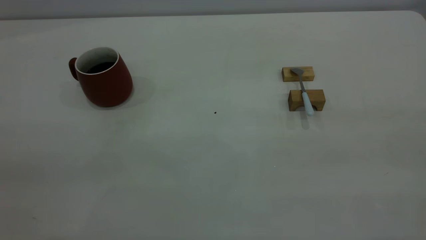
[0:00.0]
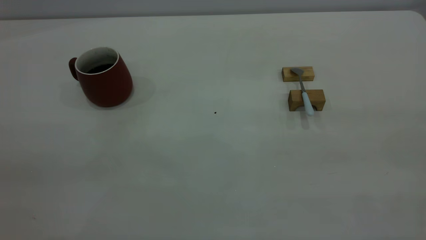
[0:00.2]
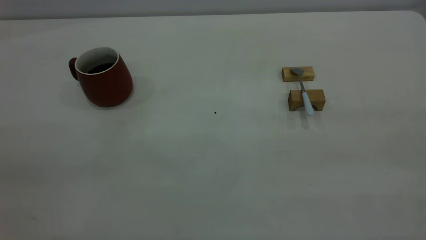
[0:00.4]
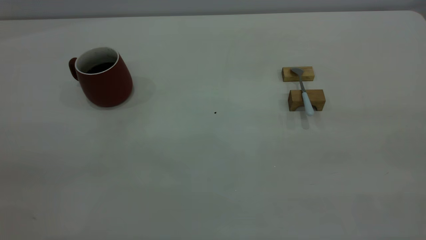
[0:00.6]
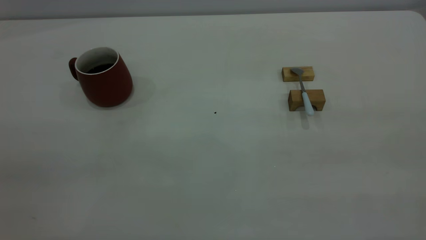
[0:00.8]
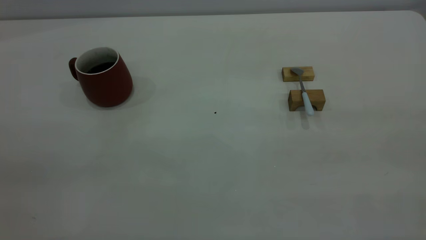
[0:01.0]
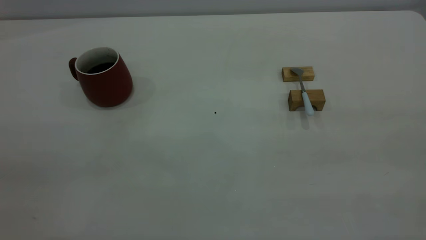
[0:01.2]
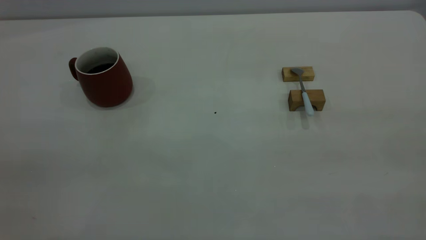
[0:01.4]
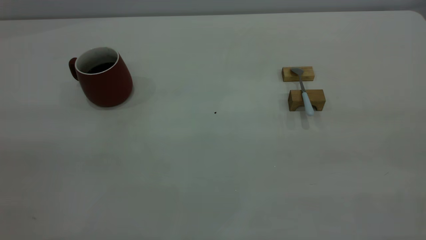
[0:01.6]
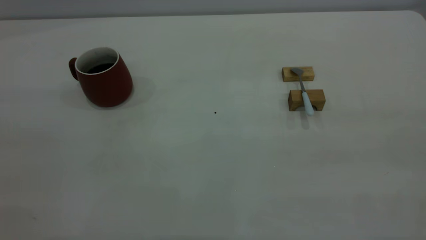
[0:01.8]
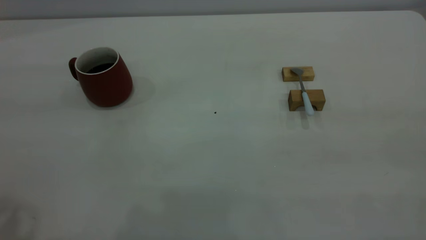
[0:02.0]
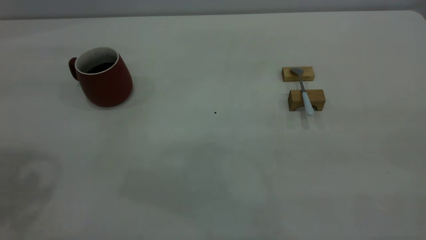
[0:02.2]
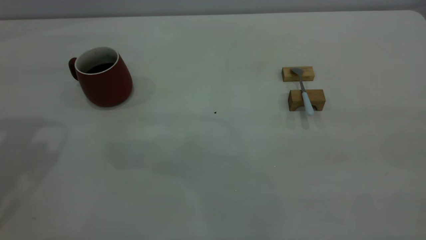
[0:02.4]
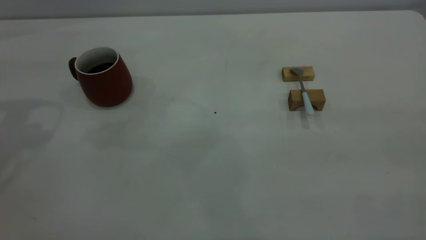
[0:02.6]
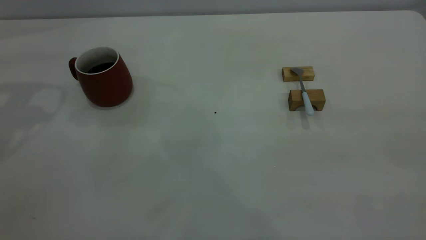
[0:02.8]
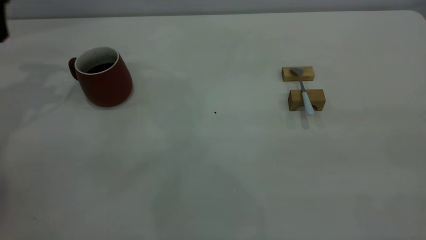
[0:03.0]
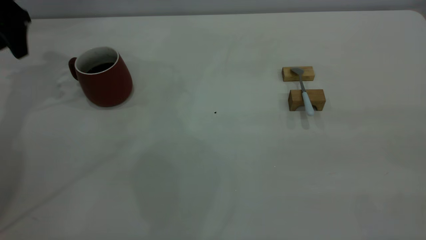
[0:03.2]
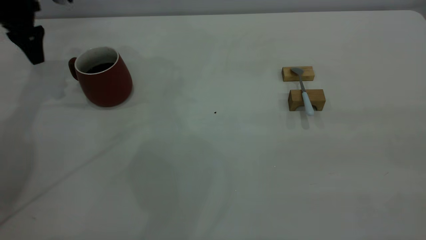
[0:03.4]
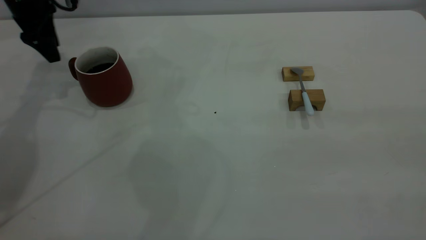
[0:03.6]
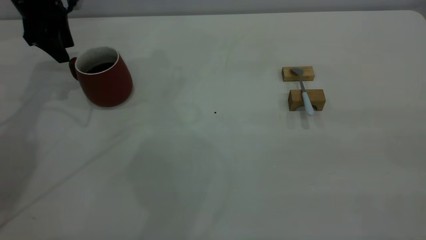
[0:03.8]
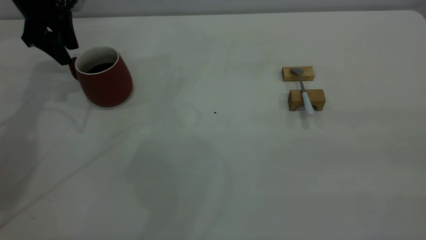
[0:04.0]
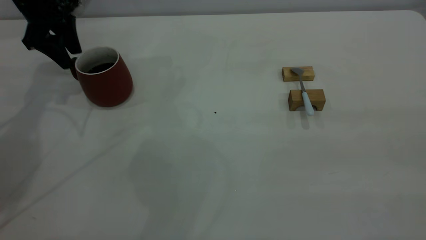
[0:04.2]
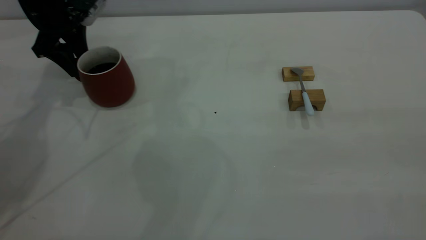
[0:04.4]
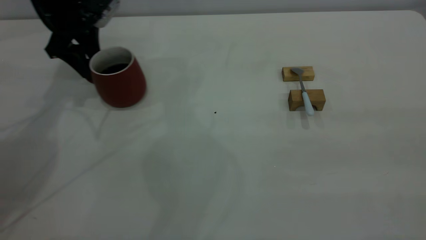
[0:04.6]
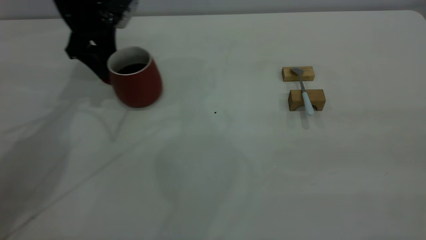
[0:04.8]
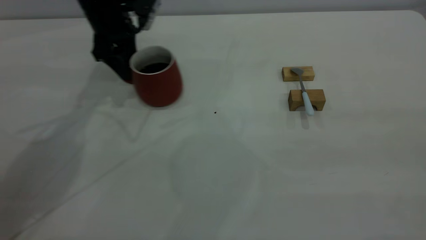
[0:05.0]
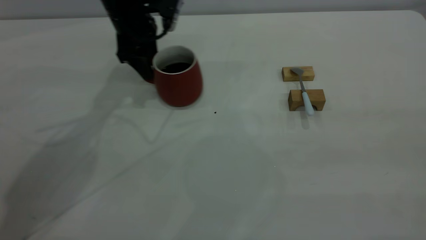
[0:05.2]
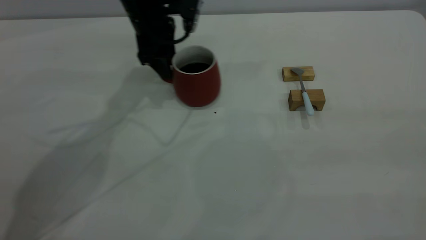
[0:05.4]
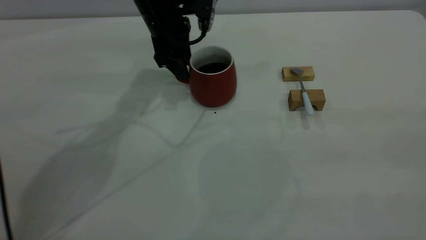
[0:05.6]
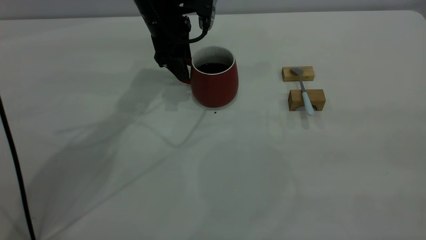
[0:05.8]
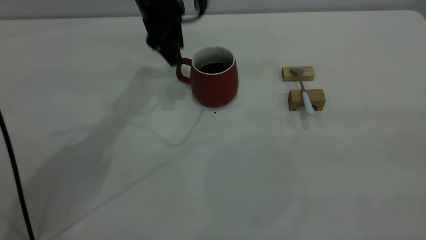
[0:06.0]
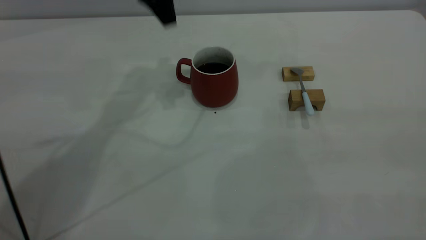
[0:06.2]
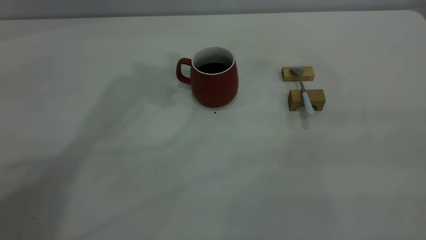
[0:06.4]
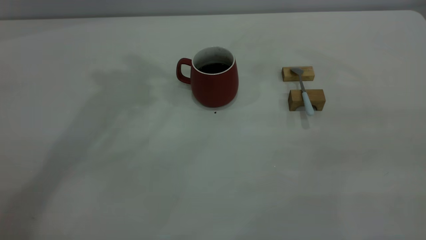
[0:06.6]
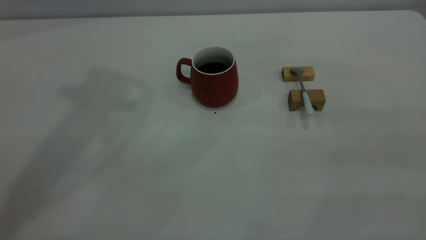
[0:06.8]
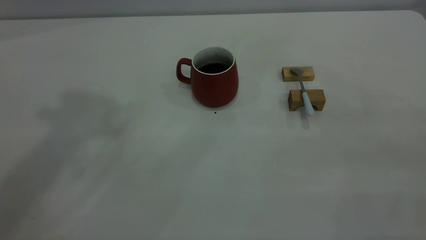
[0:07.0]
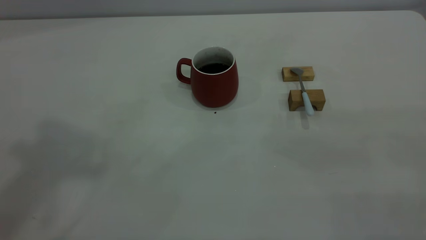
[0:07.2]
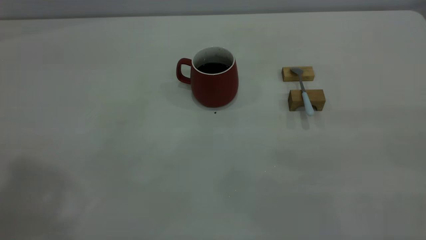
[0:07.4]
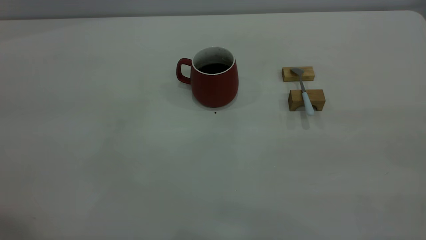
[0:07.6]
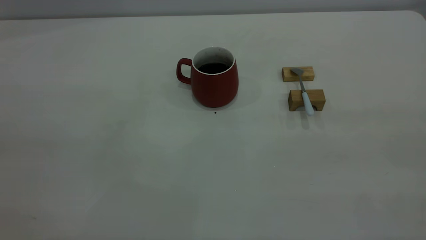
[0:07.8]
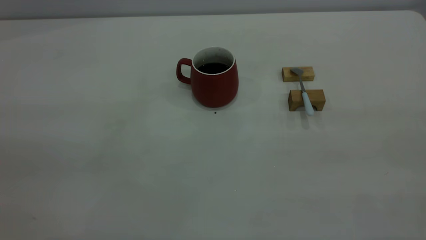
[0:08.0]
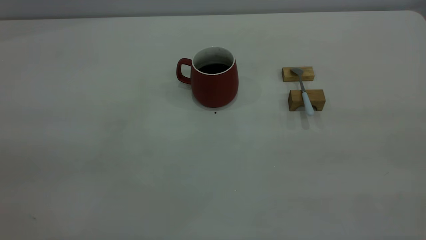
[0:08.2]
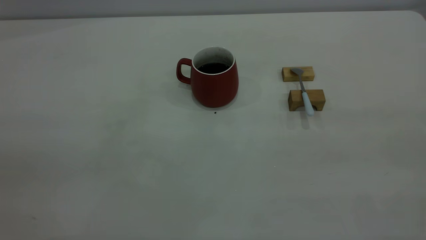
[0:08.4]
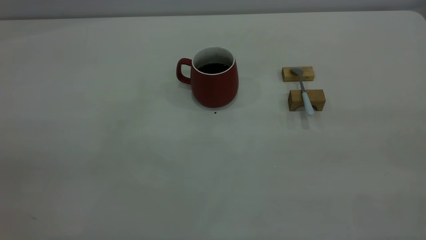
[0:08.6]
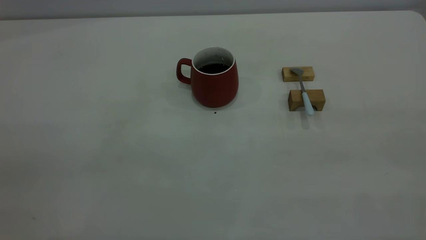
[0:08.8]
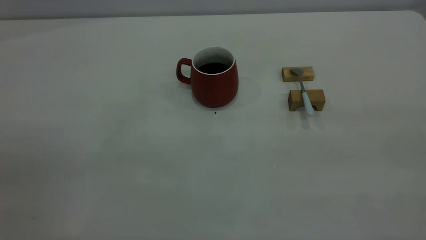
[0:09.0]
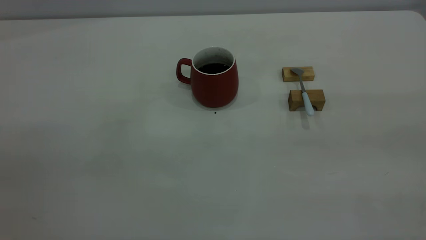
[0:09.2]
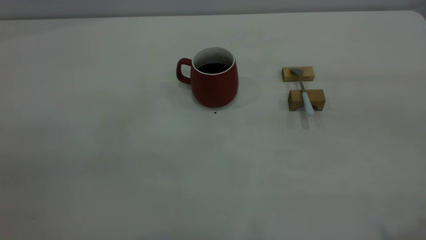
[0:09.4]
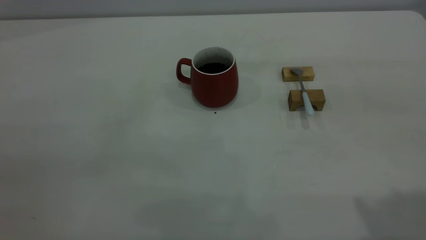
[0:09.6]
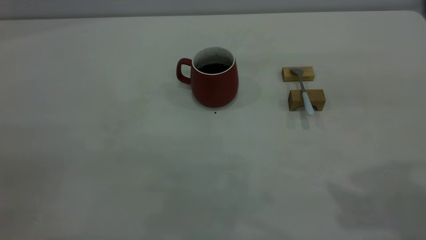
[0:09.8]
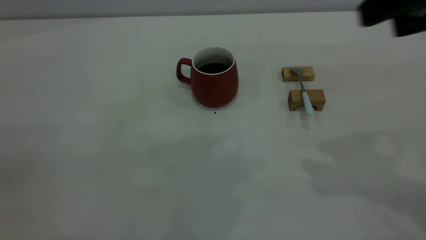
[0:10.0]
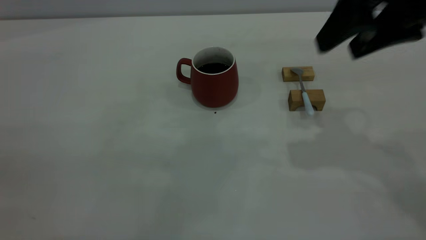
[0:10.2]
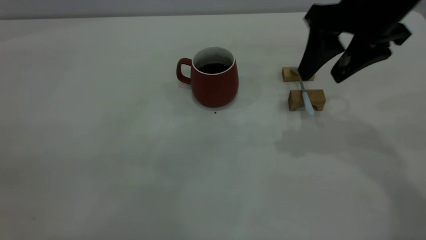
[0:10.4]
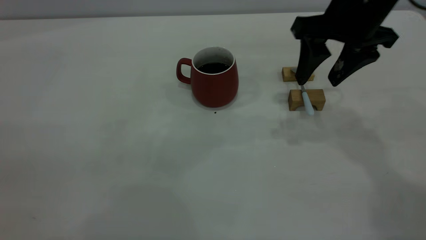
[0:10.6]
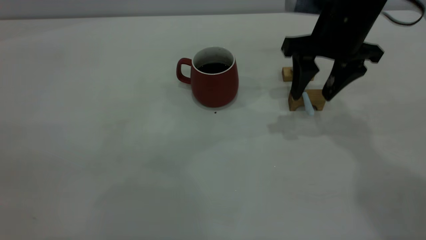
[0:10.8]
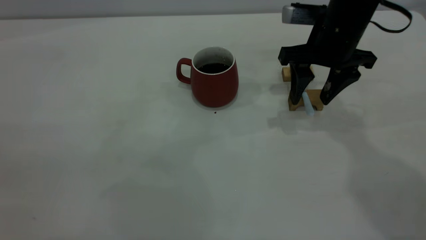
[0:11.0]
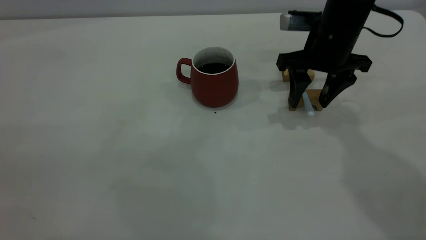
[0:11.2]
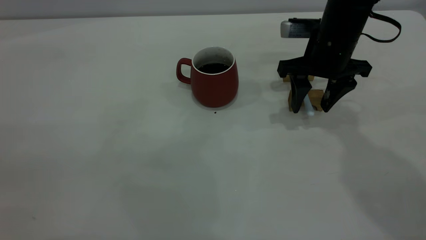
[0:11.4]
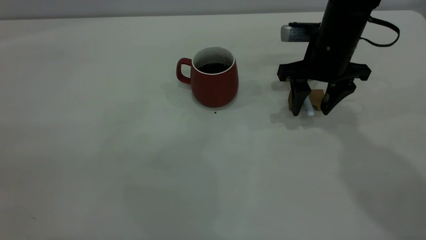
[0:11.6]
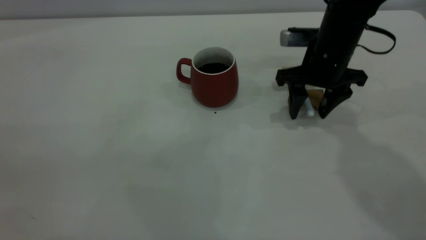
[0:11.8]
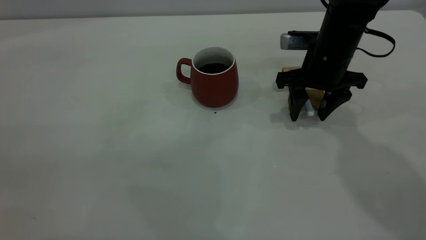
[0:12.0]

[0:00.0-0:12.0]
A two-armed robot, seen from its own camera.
Step, 0:00.0 to 0:06.0: Move the cup with coffee to the center of view.
0:03.0 to 0:04.4: The left gripper is displaced downward, to the right and forward by about 15 cm.
0:04.4 to 0:06.0: The left gripper shifts approximately 20 cm to the right.
0:06.0 to 0:07.6: The left gripper shifts approximately 50 cm backward, upward and to the left.
0:09.0 to 0:10.4: The right gripper is displaced forward and downward by approximately 35 cm.
0:10.4 to 0:12.0: The right gripper goes roughly 15 cm downward and forward.

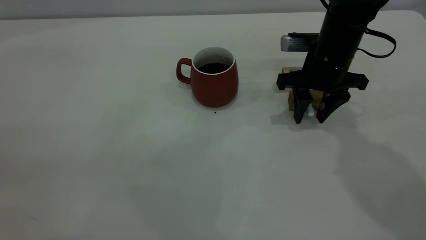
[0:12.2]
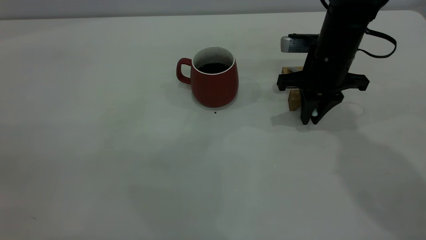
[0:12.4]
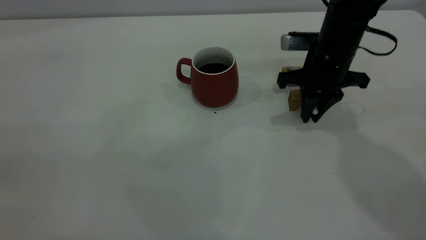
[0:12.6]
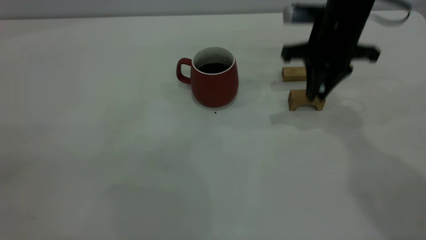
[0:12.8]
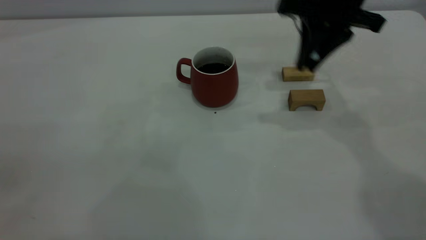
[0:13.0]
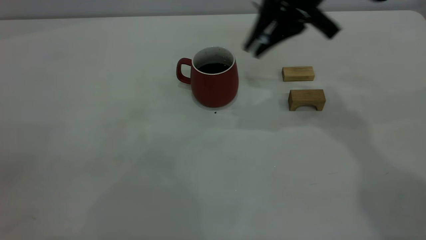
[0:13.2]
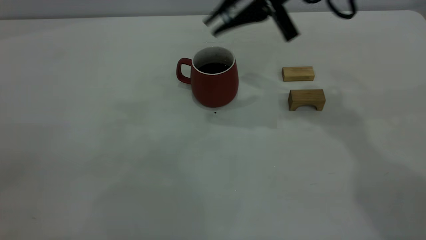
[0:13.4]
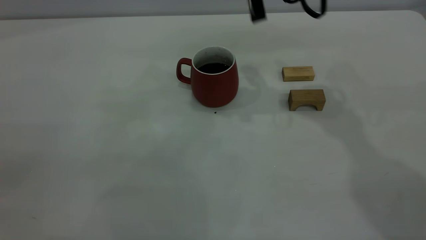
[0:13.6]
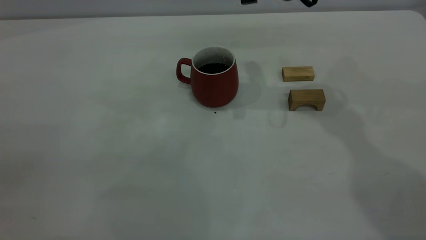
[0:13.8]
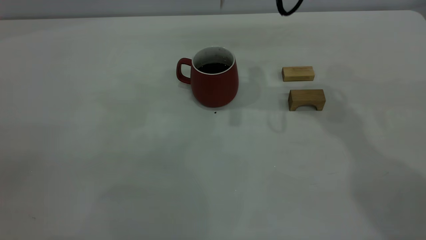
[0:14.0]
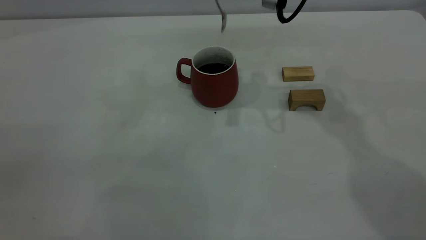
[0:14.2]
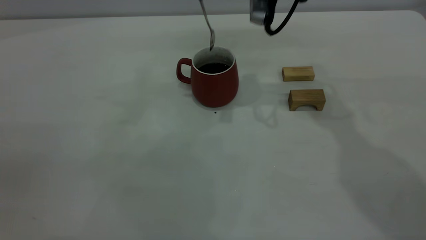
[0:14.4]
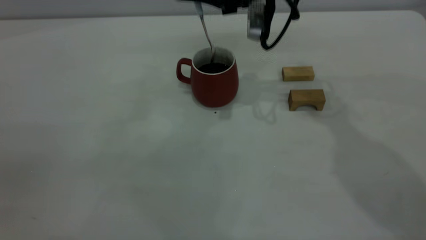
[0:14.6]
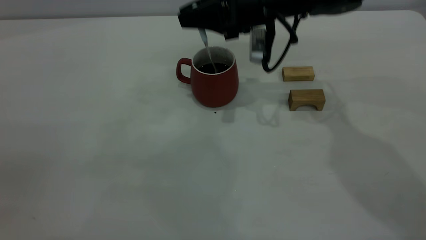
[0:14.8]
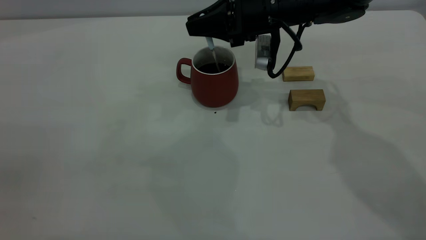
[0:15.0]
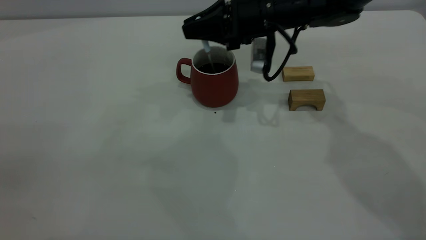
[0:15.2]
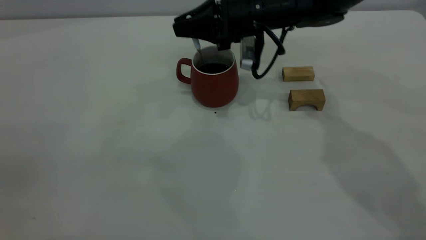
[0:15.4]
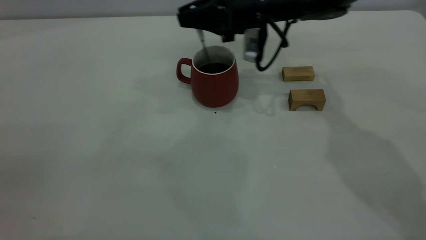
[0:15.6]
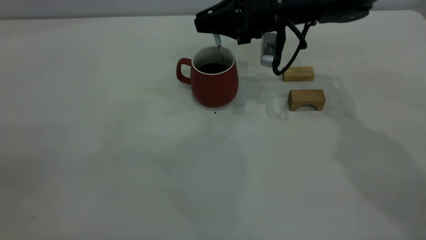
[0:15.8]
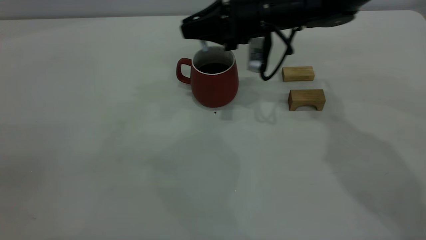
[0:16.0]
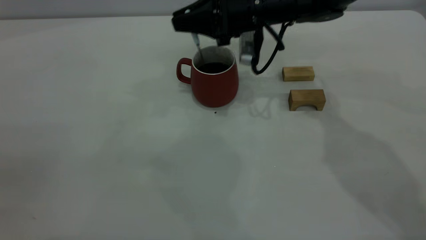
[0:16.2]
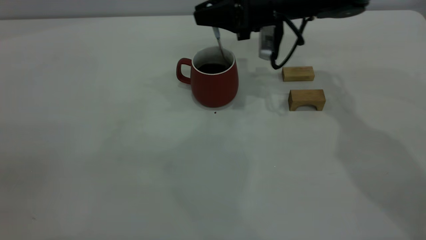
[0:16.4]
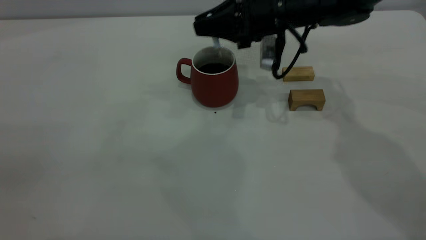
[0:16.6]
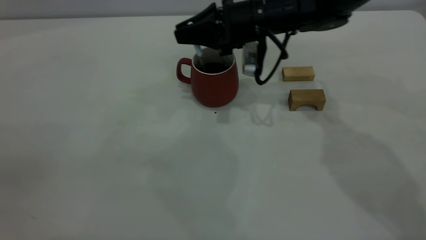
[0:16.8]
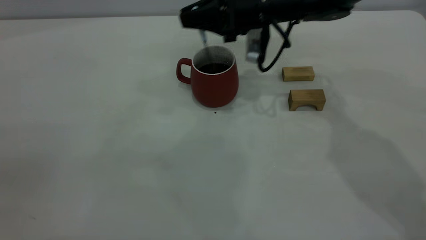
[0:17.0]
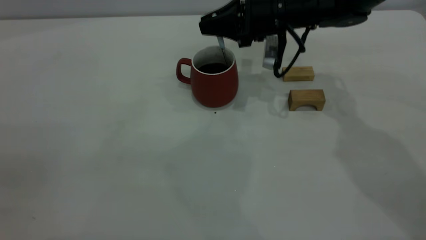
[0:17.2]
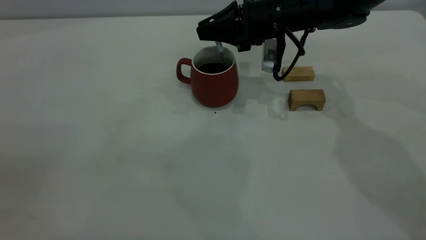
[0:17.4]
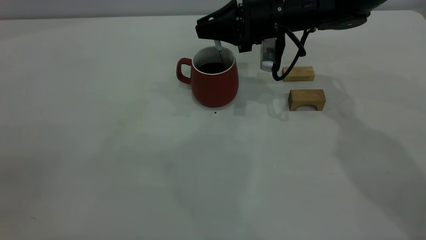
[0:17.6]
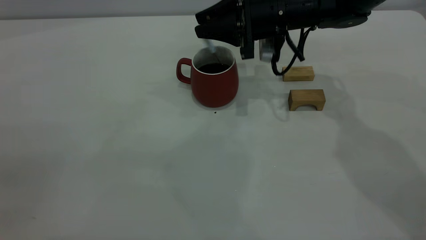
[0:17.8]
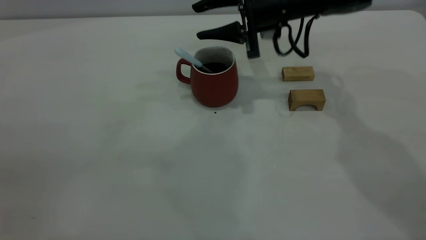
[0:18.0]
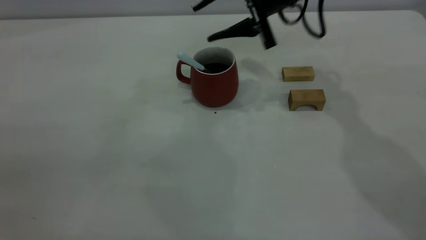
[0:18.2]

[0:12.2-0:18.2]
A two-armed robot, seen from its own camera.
Step, 0:12.8 to 0:17.8: Stir the coffee in the cup.
0:12.2 to 0:13.8: The right gripper travels upward and to the left by approximately 15 cm, and closes its fingers.
0:13.8 to 0:15.2: The right gripper travels downward by roughly 10 cm.
0:15.2 to 0:16.6: The grippers move only a little.
0:16.6 to 0:18.2: The right gripper moves upward, approximately 5 cm, and opens its fingers.
